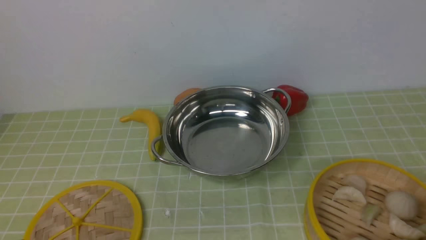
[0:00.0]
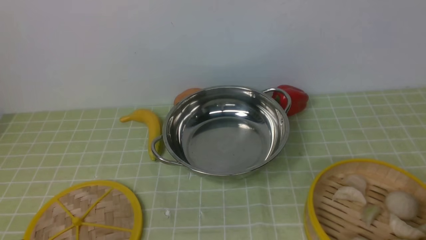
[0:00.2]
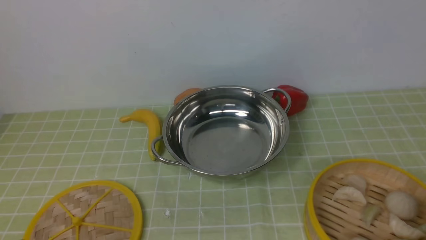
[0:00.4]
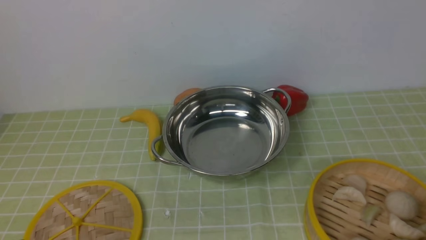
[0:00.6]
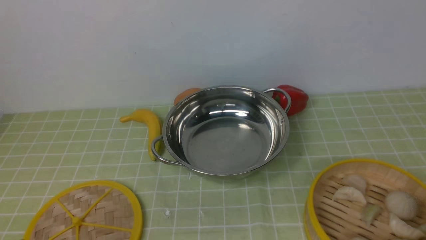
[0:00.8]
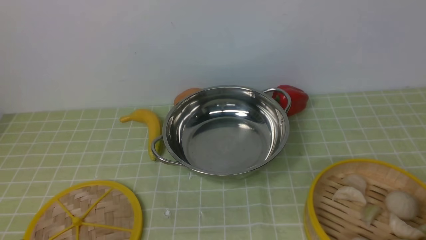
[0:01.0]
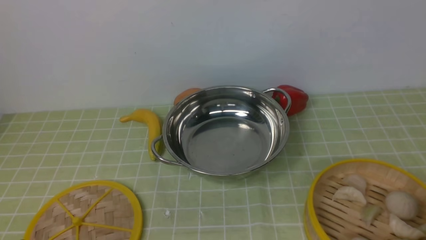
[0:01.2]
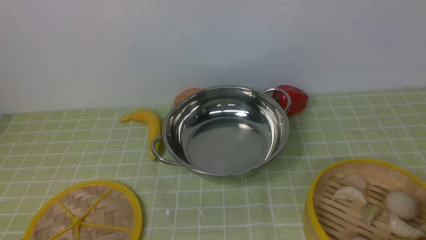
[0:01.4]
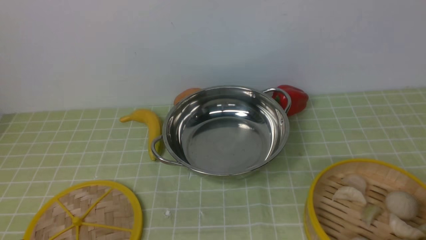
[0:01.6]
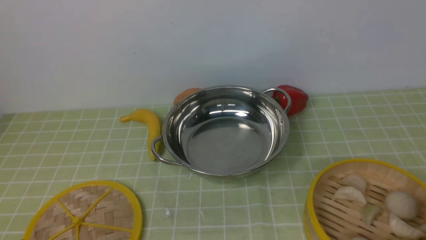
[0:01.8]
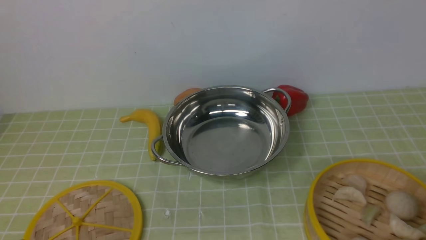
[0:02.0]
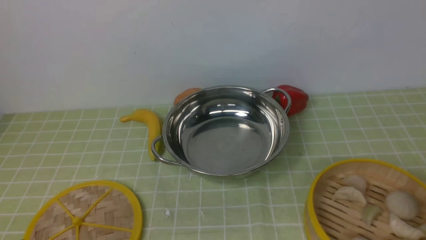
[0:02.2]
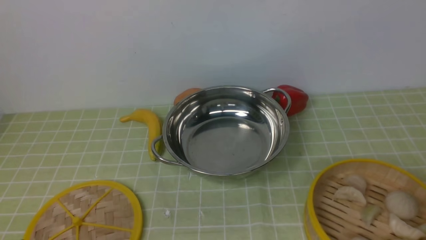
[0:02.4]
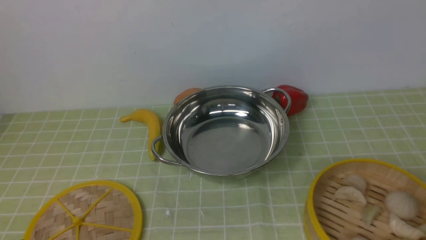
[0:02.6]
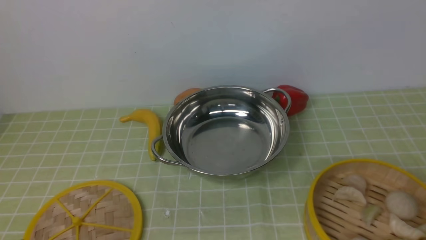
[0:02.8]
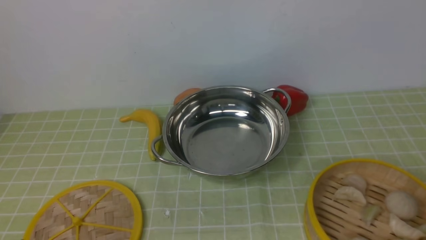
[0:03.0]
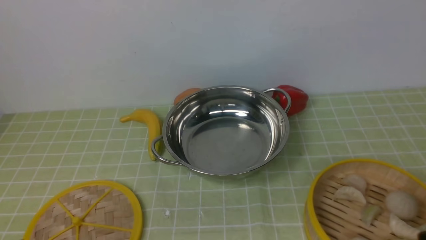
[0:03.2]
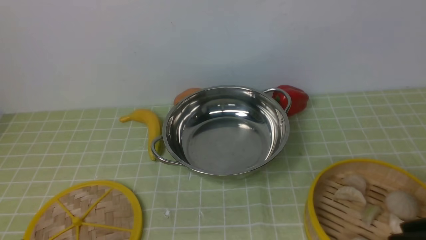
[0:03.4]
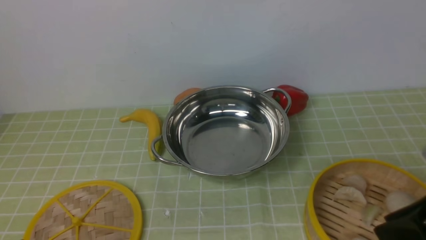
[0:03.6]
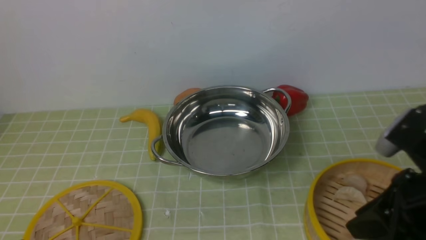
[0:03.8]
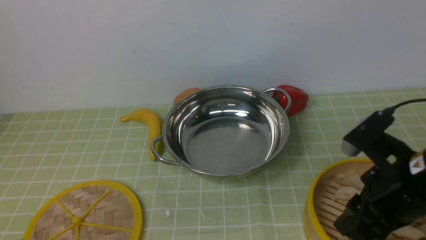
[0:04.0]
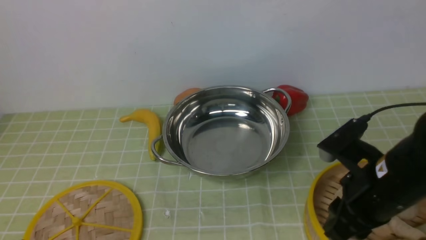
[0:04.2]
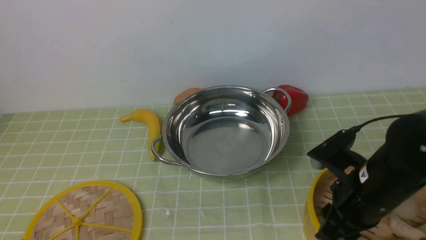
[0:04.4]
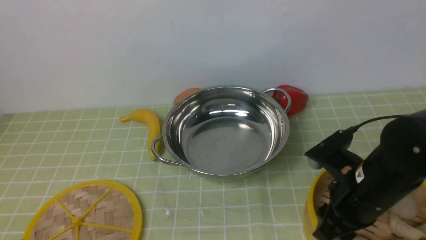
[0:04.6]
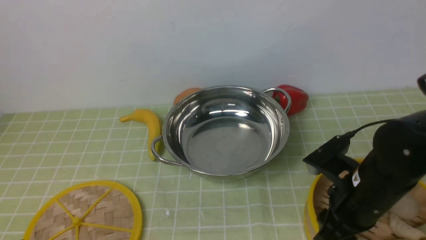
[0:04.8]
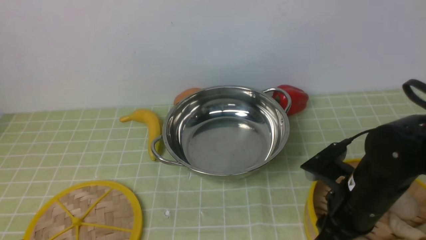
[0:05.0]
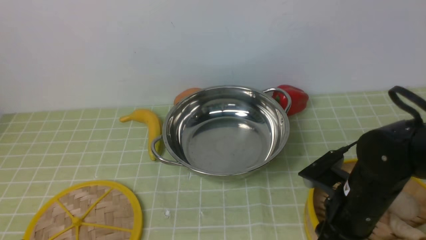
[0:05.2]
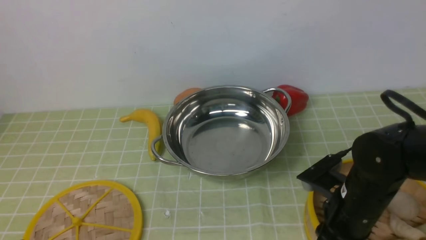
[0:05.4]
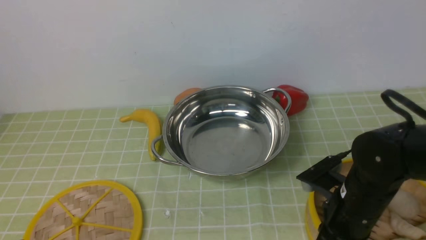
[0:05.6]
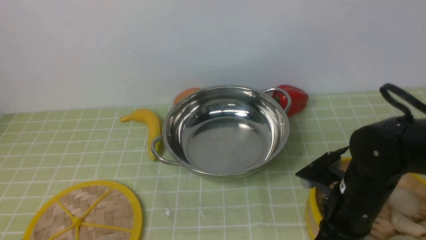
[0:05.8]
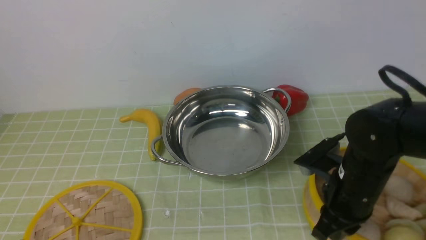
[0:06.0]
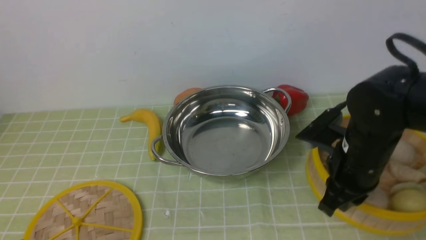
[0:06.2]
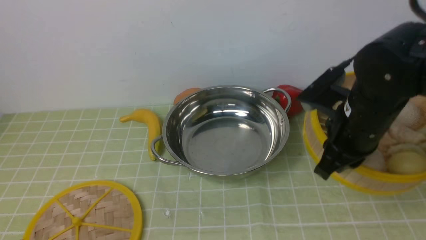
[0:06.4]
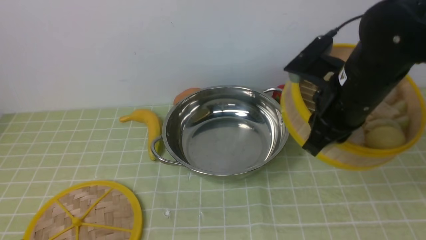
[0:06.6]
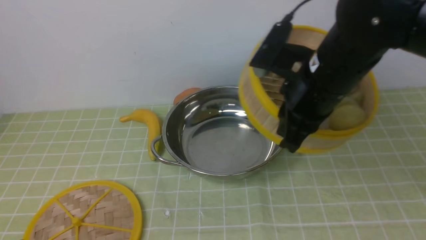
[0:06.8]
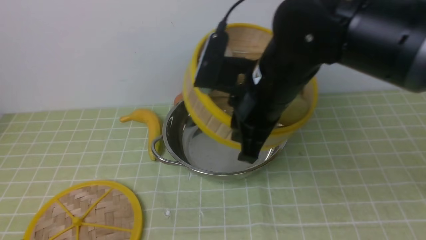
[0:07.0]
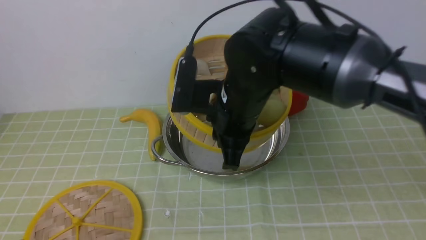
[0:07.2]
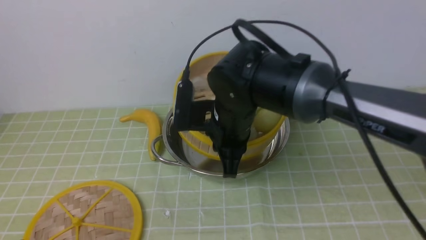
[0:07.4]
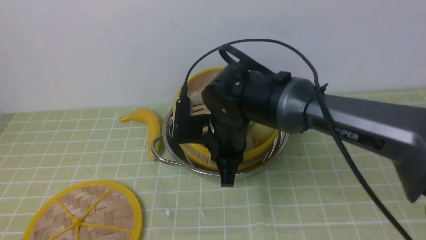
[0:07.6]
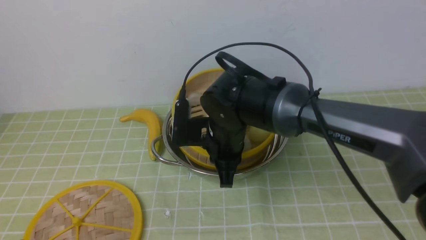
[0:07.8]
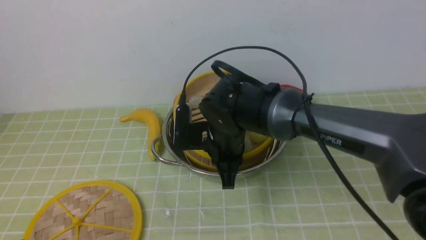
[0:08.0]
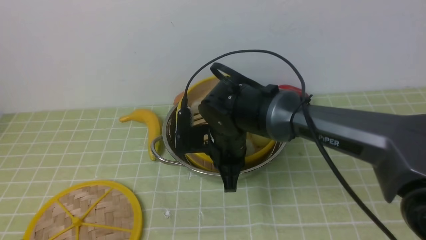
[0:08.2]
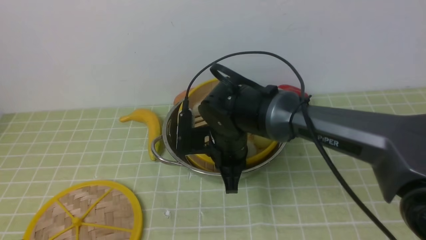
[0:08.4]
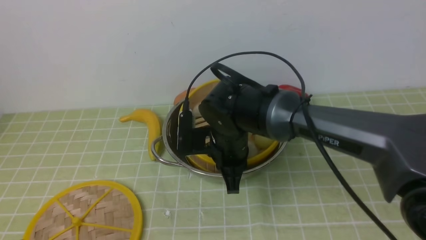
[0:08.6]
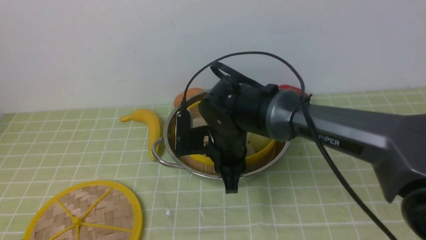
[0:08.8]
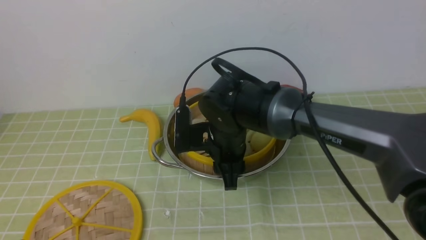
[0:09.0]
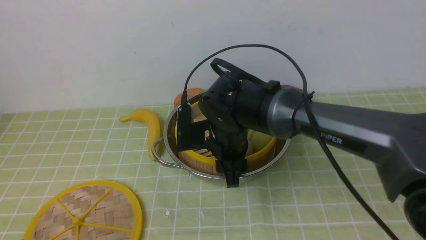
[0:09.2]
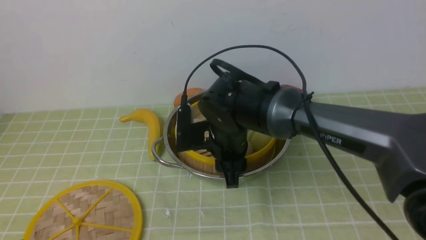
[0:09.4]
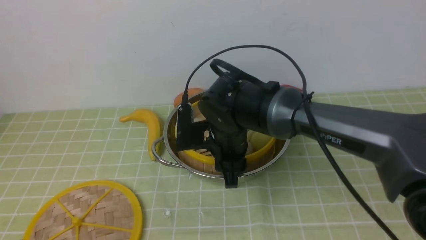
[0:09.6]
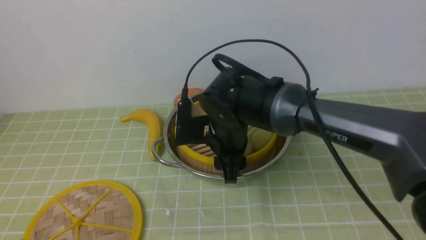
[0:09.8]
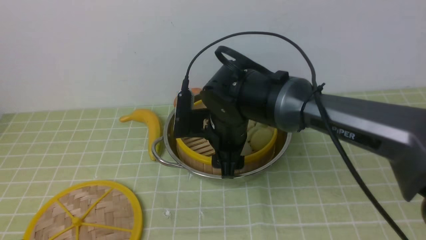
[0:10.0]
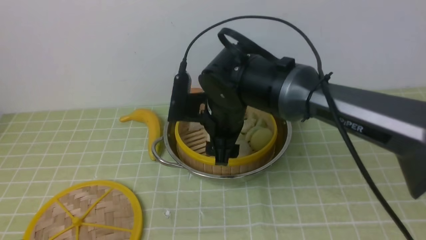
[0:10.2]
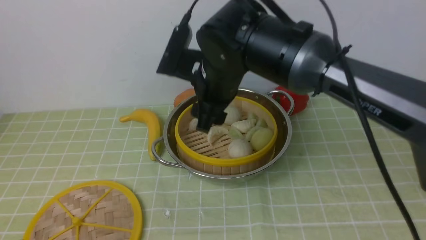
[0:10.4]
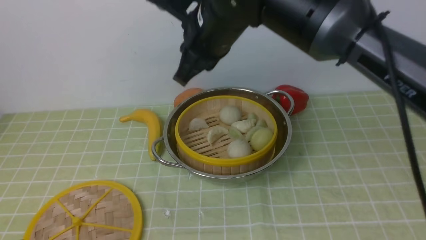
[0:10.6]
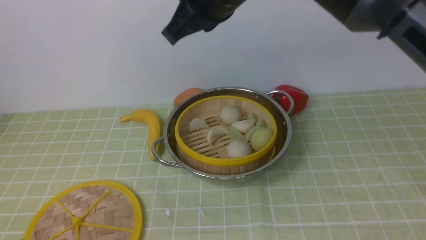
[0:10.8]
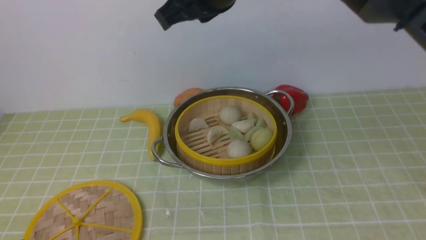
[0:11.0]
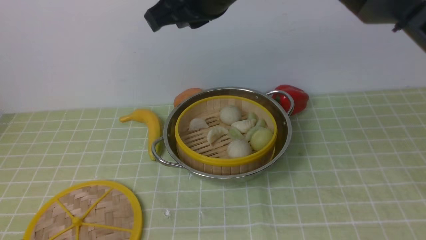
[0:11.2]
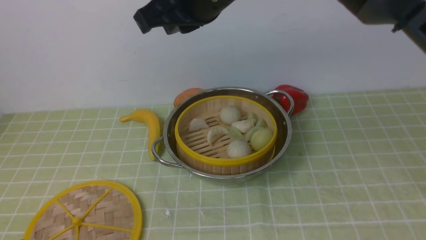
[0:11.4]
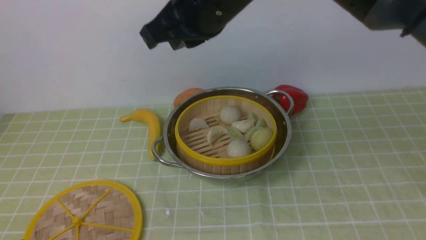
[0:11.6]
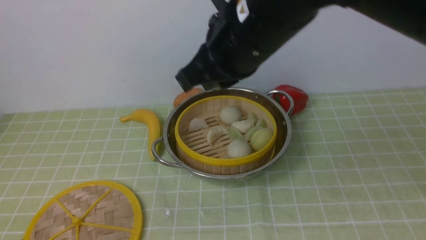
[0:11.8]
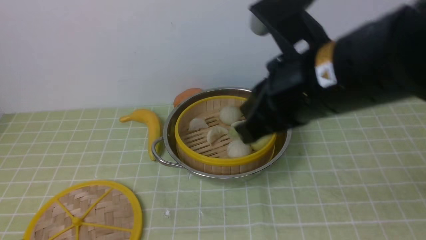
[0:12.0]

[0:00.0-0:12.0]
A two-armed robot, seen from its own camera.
Task of the whole recording: place the steamer in the pot on the green tablecloth, and put the lid on the steamer.
Step, 0:00.0 to 0:06.4: use the right arm to lift the steamer closest to it.
Step, 0:06.8 to 0:10.2: use the right arm to put the steamer into the iron steamer pot in the middle.
0:03.0 to 0:04.4: The right gripper is displaced forward, to the left and downward by some 25 cm.
0:04.4 to 0:06.0: The right gripper shifts by some 5 cm, and closes up.
0:06.0 to 0:07.6: The right gripper heads to the left and forward, covering roughly 20 cm.
0:07.6 to 0:09.0: The right gripper opens its fingers.
0:09.0 to 0:10.4: The right gripper heads upward, covering roughly 10 cm.
0:10.4 to 0:12.0: The right gripper travels backward, upward and to the right by approximately 15 cm, and closes its fingers.

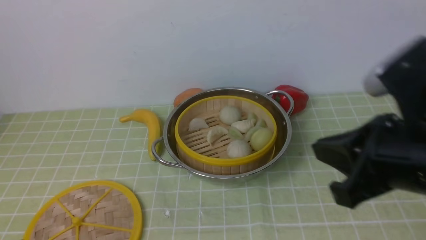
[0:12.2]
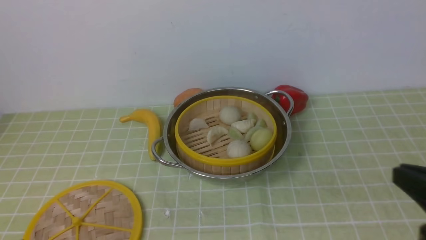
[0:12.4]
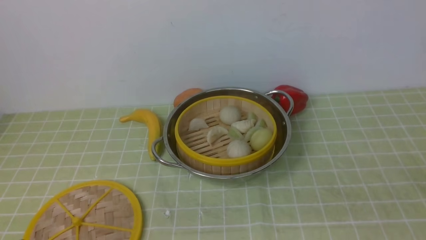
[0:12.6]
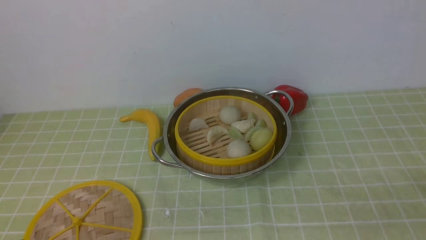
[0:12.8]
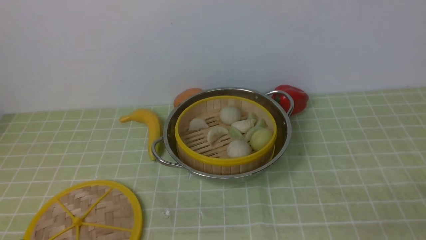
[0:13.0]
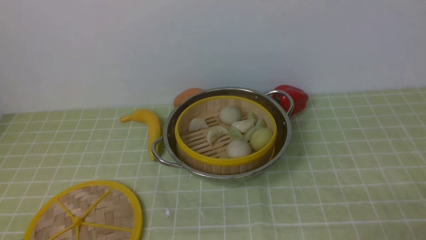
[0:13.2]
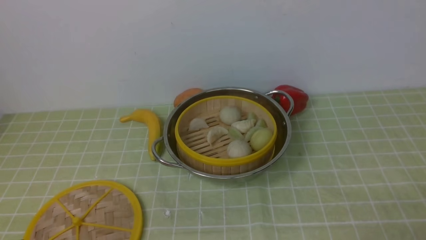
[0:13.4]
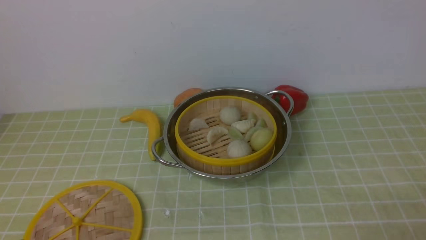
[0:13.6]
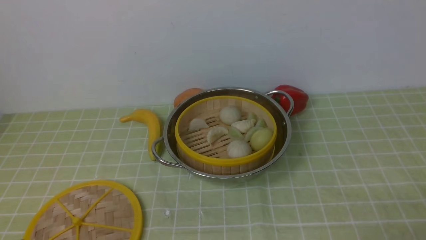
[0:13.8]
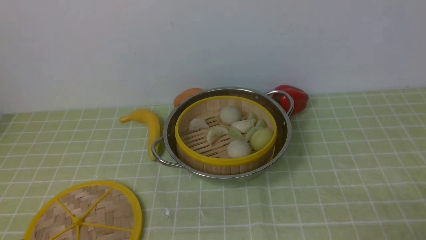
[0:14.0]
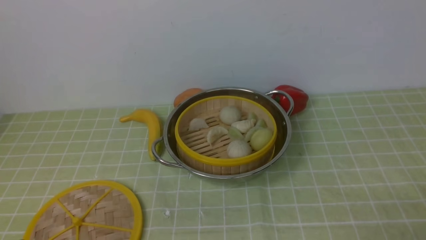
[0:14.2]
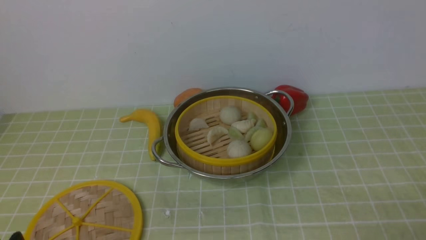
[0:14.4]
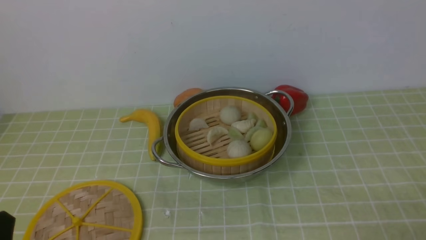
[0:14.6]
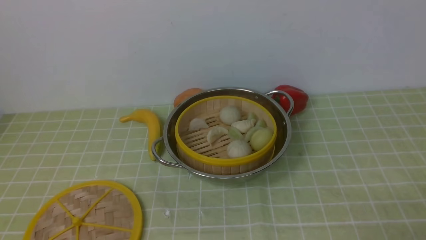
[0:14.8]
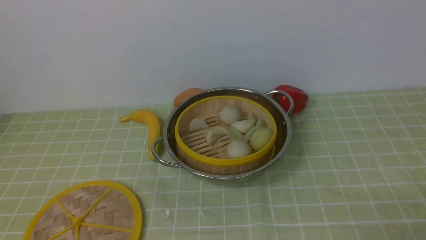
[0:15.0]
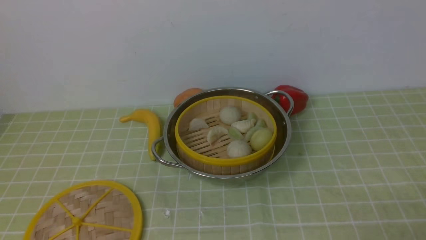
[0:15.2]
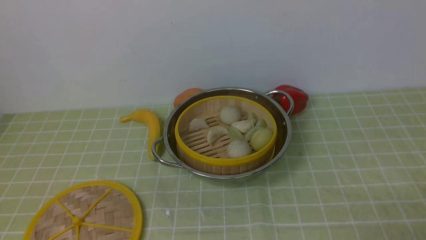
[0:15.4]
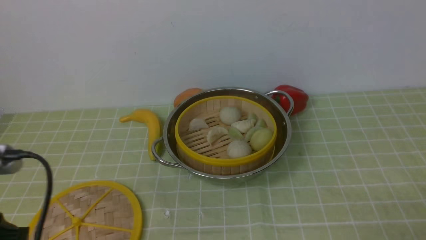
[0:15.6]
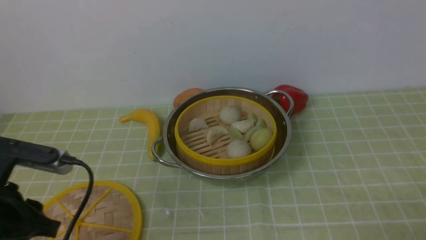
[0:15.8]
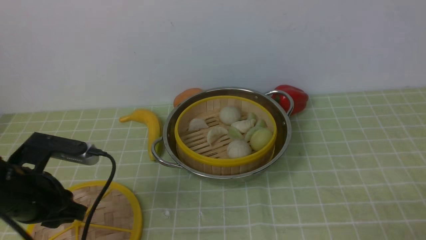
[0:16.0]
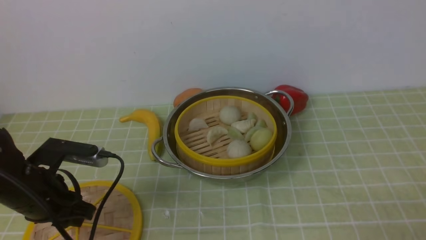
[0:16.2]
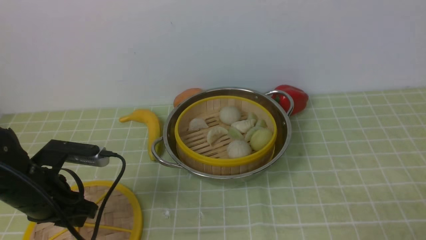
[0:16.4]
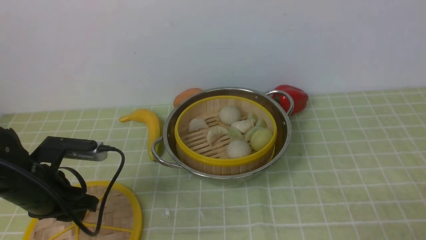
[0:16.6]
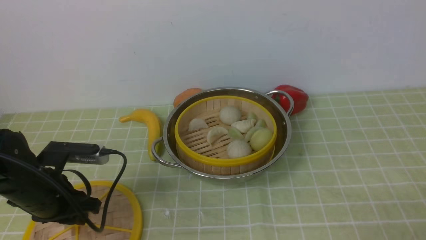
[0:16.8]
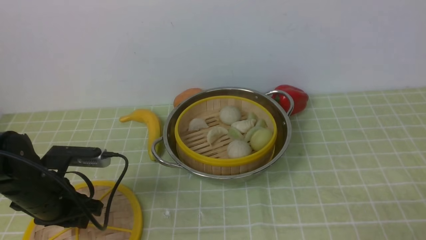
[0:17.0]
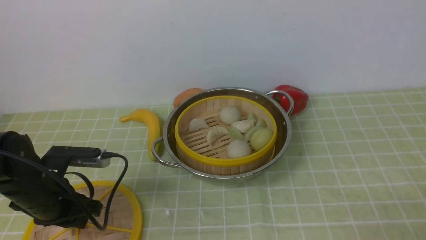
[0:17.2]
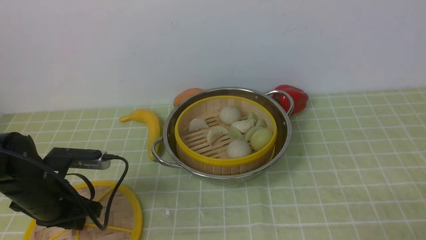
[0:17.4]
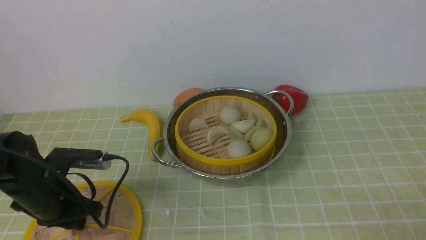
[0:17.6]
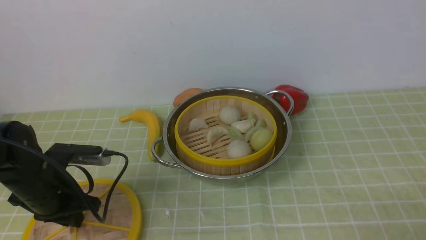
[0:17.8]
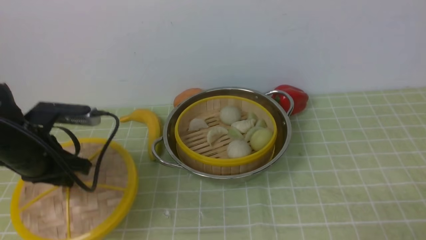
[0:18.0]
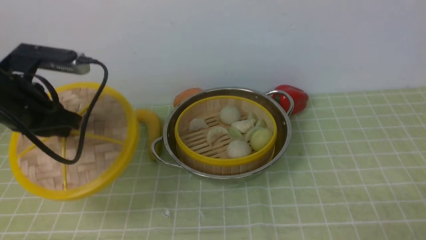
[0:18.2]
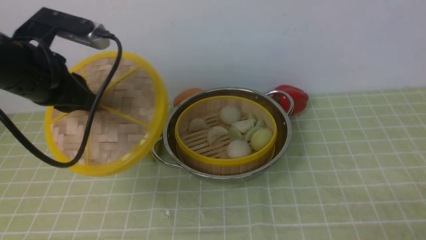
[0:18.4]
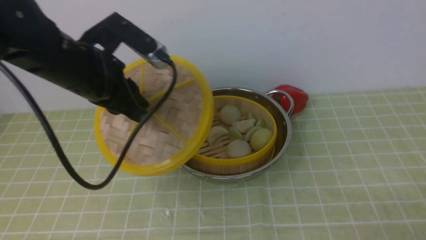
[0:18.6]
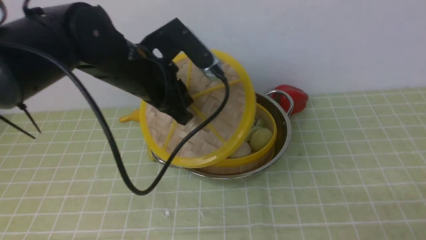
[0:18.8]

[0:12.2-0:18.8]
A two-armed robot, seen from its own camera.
Task of the whole recording: place the steamer in the pot on the green tablecloth, and put the lid on the steamer.
Step, 0:12.2 to 0:18.2: use the left arm to lift the lid of the steamer.
0:12.2 to 0:13.8: The right gripper heads downward, to the right and backward, covering some 25 cm.
0:15.4 to 0:17.2: The left gripper travels forward and downward by roughly 25 cm.
0:17.2 to 0:18.8: The left gripper travels upward, to the right and forward by roughly 20 cm.
